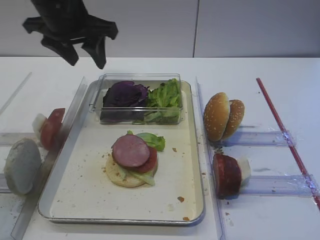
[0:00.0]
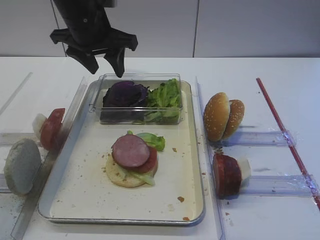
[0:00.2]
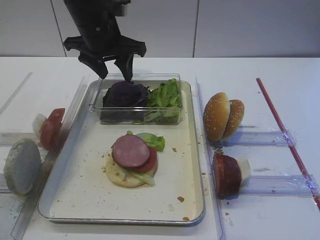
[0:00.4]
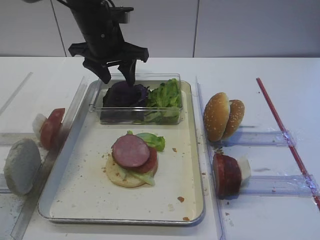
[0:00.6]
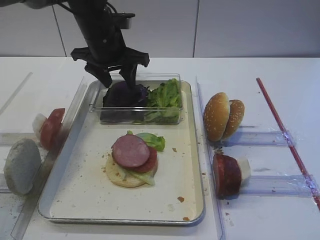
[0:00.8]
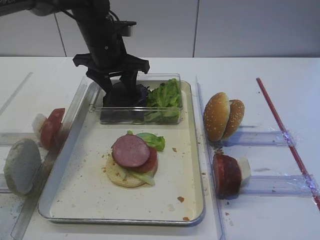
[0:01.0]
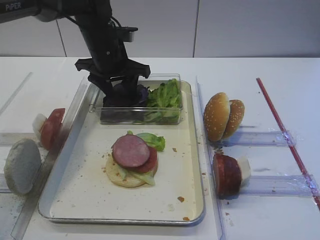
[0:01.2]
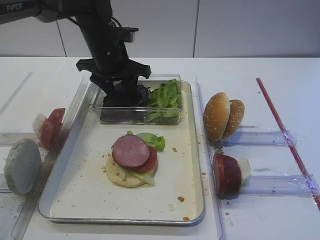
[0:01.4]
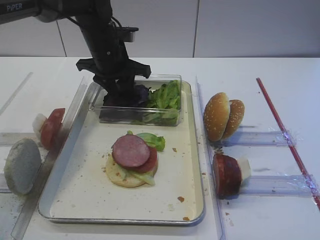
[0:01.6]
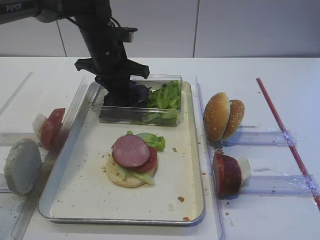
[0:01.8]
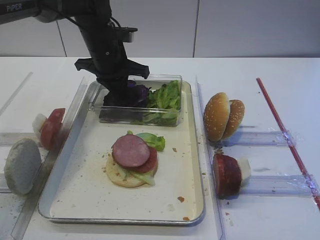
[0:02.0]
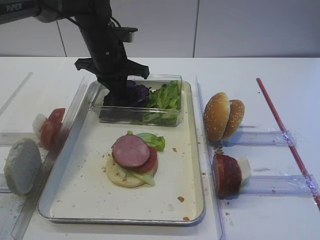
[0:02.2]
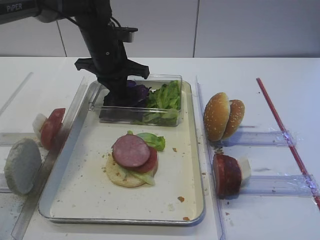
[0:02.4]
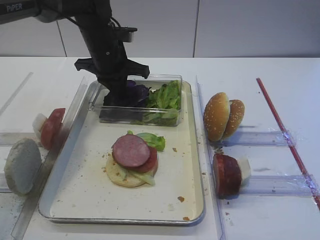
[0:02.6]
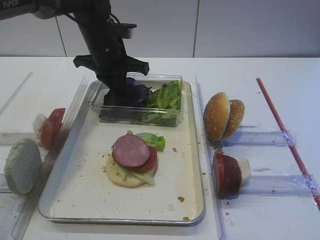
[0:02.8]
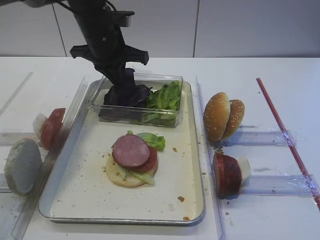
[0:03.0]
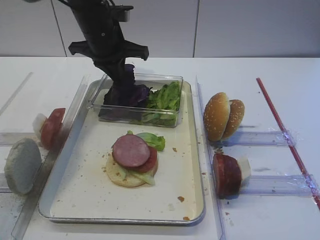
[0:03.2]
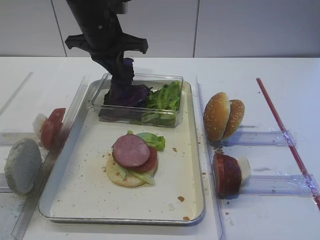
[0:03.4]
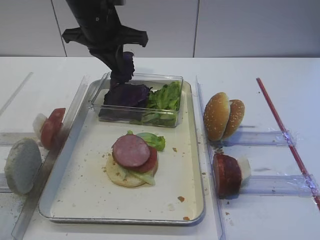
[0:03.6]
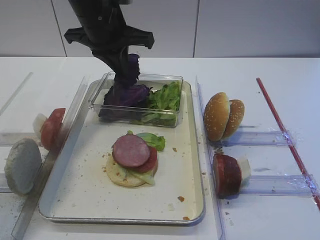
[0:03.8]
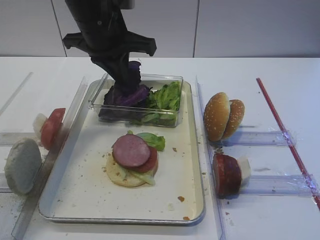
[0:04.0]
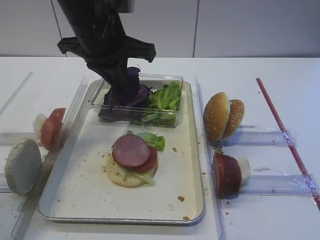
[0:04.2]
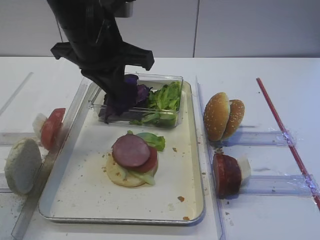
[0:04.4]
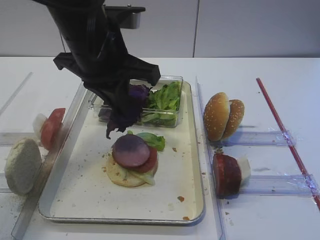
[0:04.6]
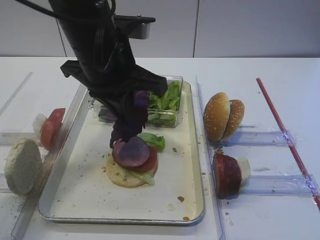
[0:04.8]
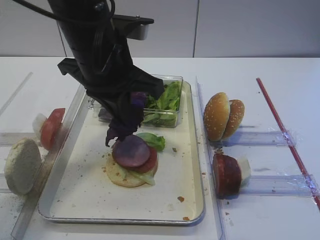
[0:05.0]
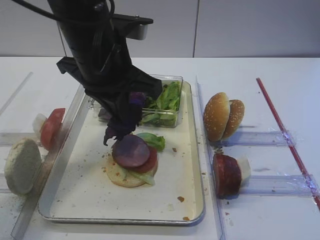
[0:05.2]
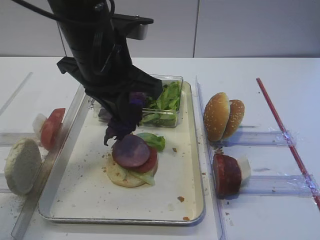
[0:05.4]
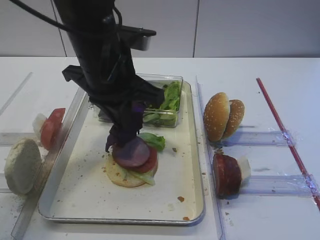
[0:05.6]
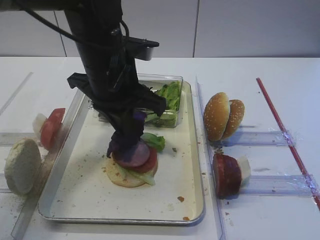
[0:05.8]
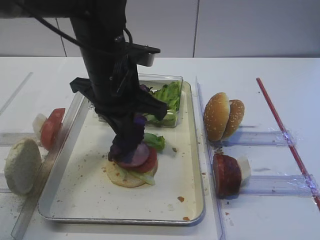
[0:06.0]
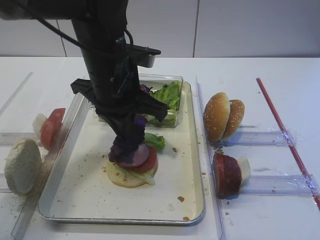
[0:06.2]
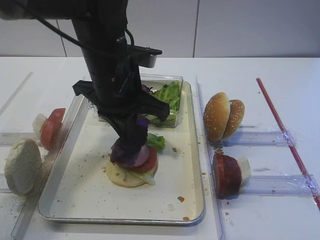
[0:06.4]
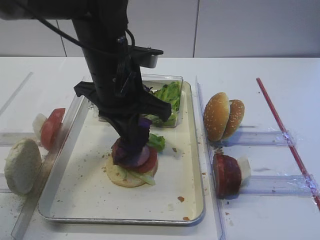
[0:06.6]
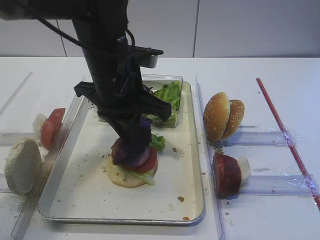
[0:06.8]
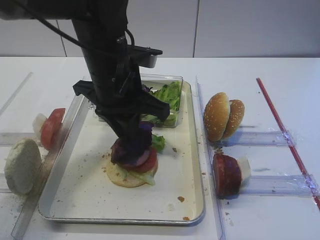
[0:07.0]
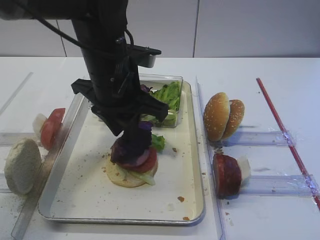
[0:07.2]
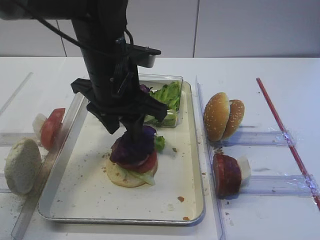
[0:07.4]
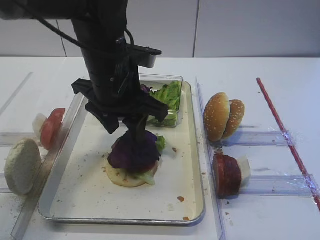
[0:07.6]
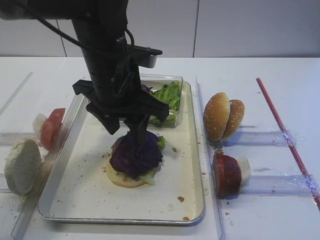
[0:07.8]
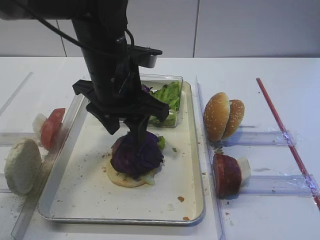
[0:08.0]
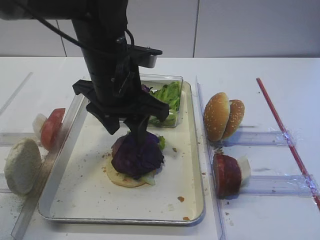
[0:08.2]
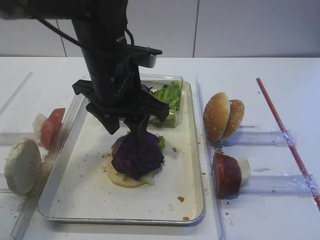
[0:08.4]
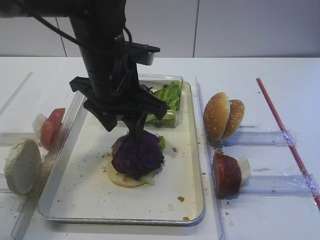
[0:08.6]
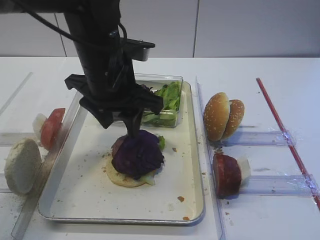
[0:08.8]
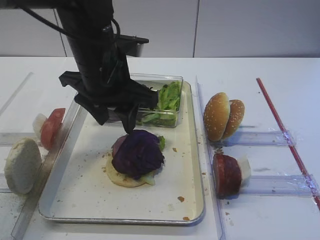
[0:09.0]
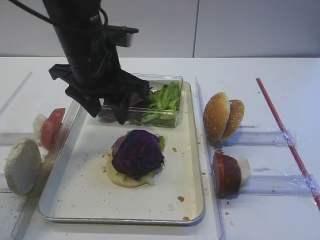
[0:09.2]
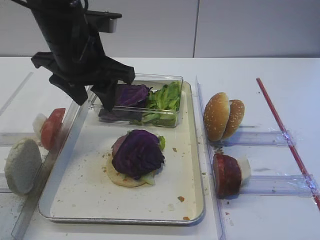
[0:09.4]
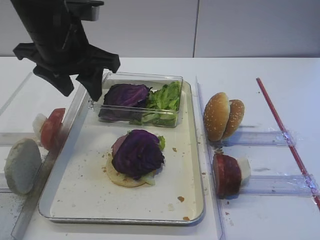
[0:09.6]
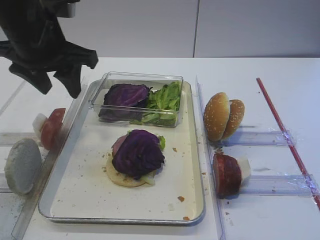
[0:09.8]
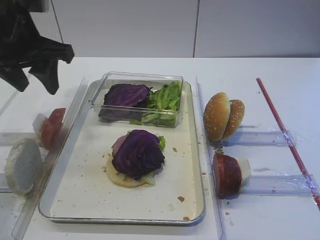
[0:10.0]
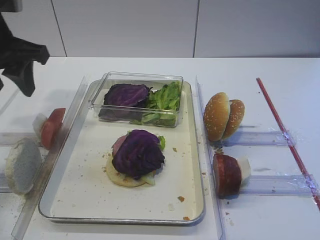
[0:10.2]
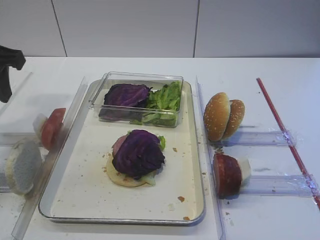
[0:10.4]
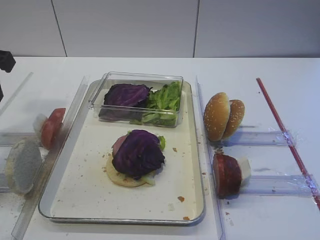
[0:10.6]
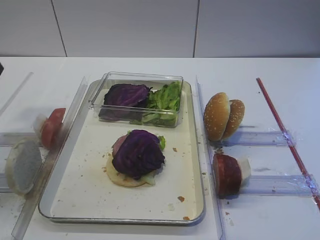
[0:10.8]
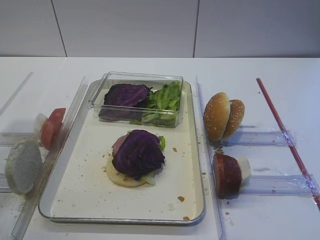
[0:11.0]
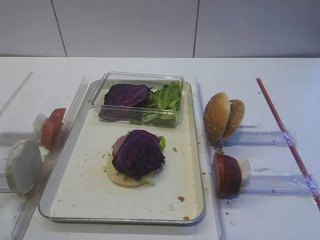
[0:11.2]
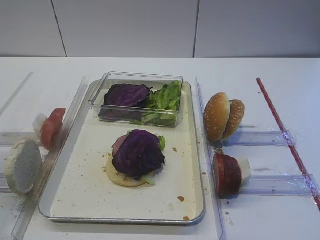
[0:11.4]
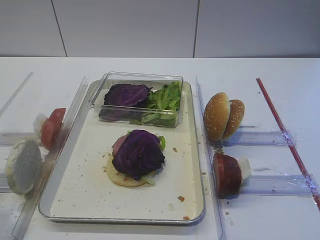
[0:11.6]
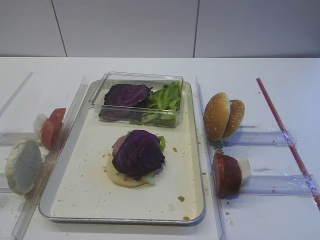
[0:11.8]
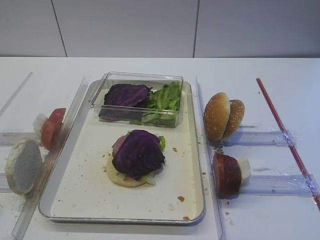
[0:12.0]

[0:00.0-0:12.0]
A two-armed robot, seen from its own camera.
Step, 0:00.0 to 0:03.6: Pick up the purple cabbage with the left gripper.
Step, 0:03.8 to 0:08.8: Place the purple cabbage on the cutlet with the left gripper.
0:00.0 to 0:01.6: The left gripper moves downward, forward and to the right, about 15 cm.
0:01.6 to 0:03.0: The left gripper closes its fingers.
0:03.0 to 0:04.4: The left gripper moves backward and upward, approximately 15 cm.
0:04.4 to 0:06.0: The left gripper travels downward by roughly 5 cm.
0:06.0 to 0:07.6: The left gripper opens its fingers.
0:07.6 to 0:09.0: The grippers move only a little.
0:09.0 to 0:10.4: The left gripper moves to the left, about 20 cm.
0:10.4 to 0:12.0: The left gripper goes some 25 cm backward.

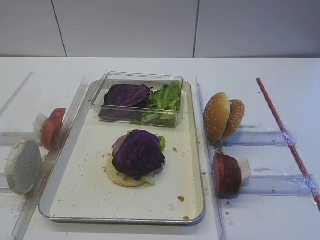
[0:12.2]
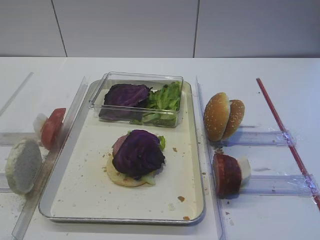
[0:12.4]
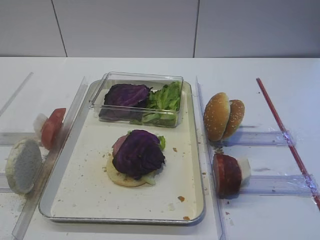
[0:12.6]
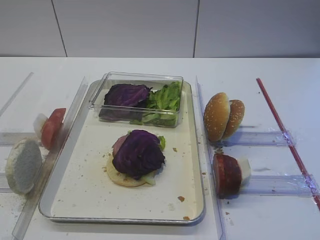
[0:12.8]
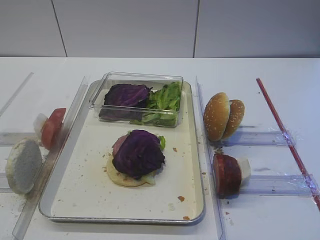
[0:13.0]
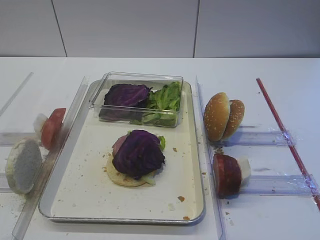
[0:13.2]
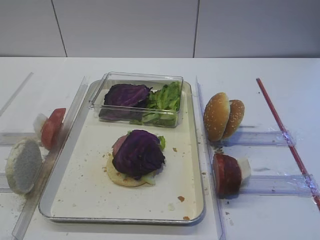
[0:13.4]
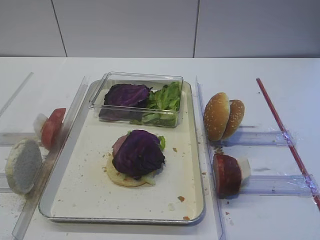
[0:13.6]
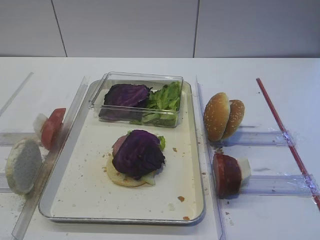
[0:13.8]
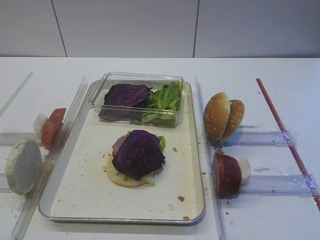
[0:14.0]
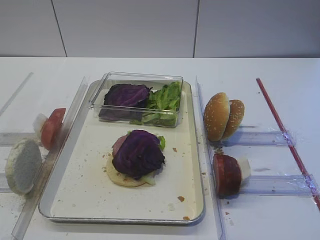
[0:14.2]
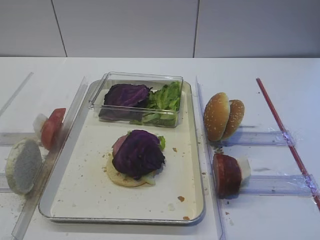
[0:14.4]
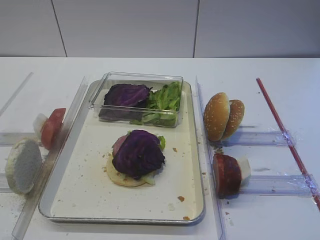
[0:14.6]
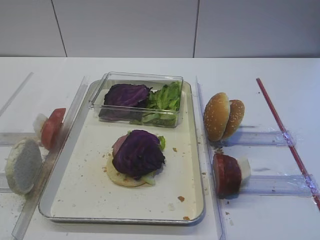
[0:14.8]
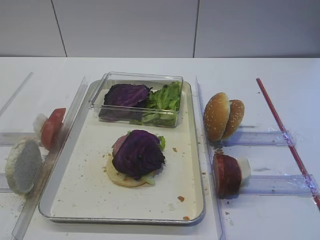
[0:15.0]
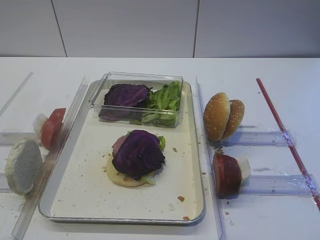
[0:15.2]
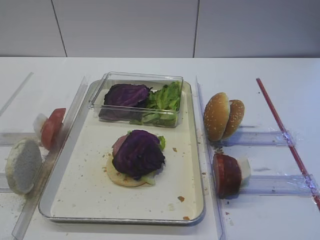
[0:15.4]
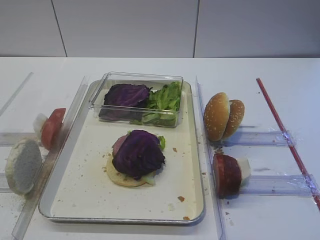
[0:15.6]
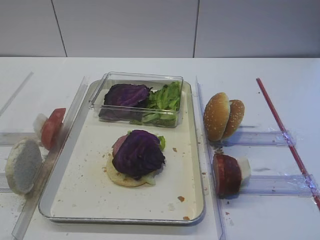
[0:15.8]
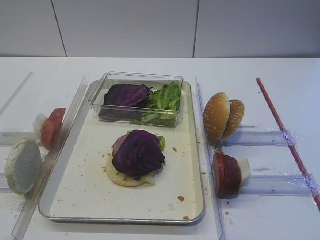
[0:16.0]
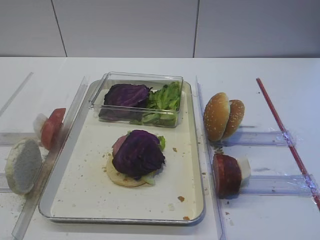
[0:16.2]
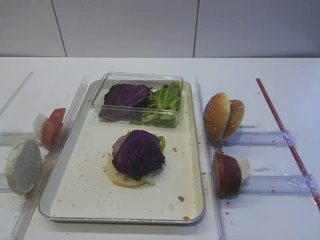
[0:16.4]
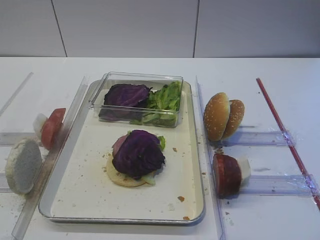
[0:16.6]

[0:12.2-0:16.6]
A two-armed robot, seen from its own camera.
0:13.6 to 0:16.6: The two grippers keep their place.

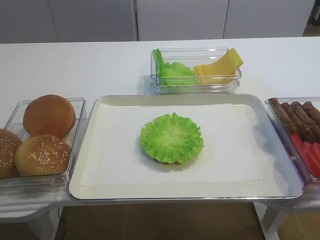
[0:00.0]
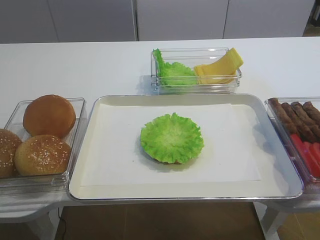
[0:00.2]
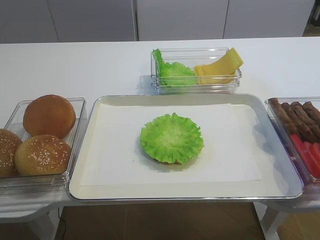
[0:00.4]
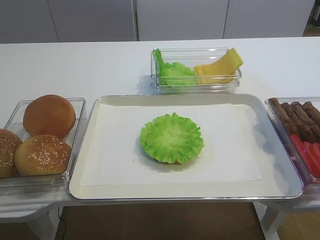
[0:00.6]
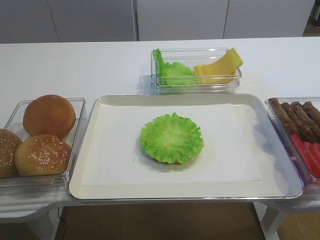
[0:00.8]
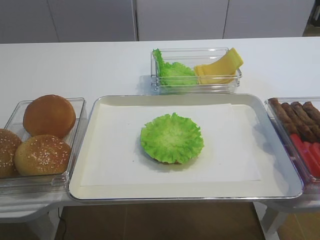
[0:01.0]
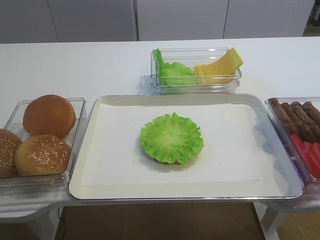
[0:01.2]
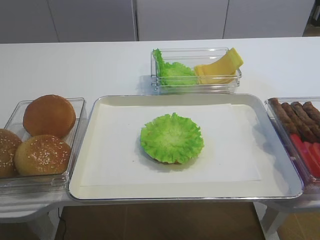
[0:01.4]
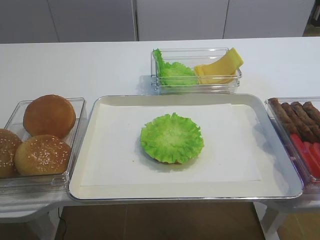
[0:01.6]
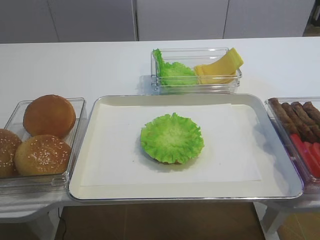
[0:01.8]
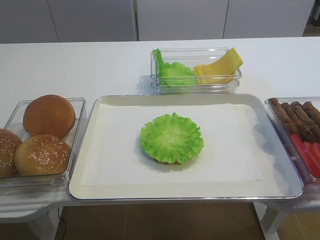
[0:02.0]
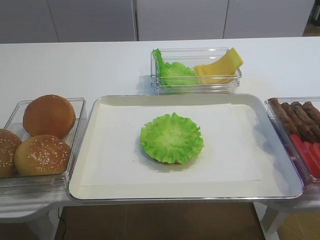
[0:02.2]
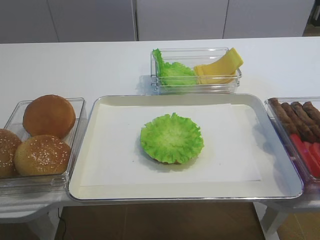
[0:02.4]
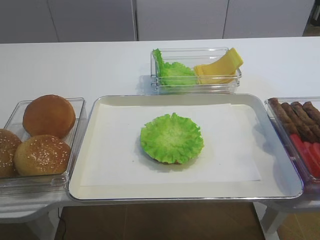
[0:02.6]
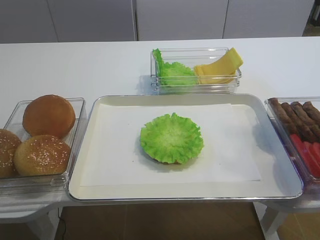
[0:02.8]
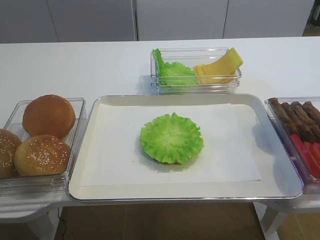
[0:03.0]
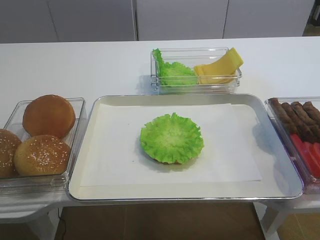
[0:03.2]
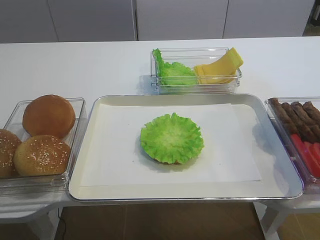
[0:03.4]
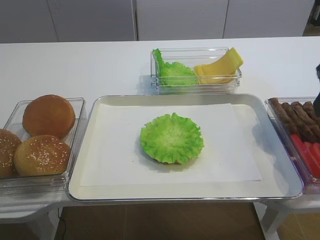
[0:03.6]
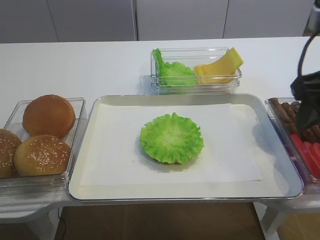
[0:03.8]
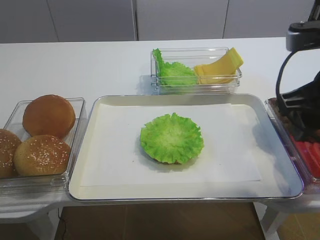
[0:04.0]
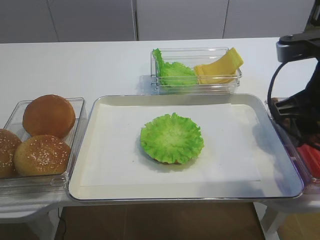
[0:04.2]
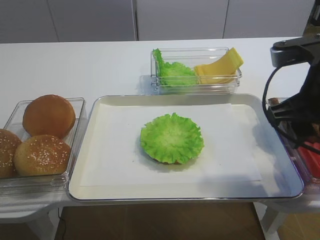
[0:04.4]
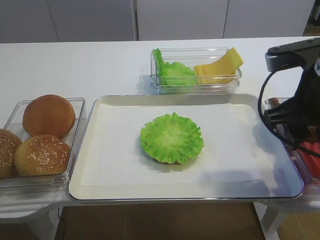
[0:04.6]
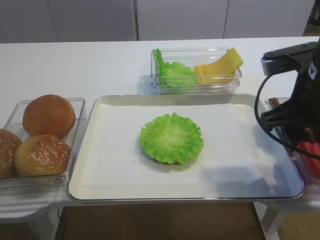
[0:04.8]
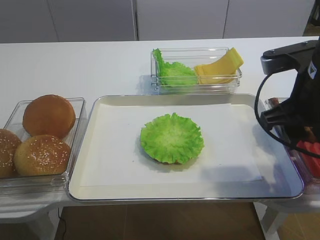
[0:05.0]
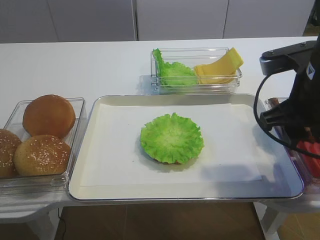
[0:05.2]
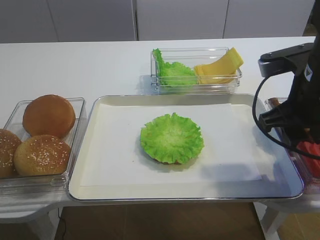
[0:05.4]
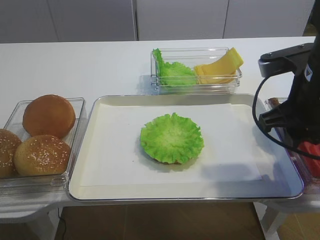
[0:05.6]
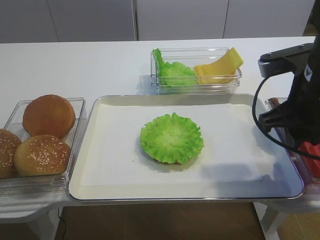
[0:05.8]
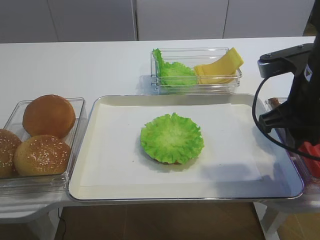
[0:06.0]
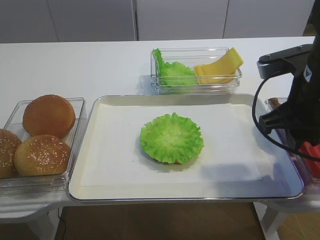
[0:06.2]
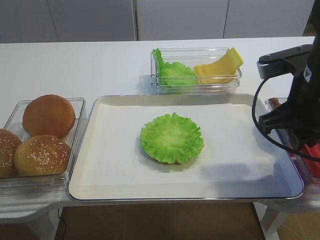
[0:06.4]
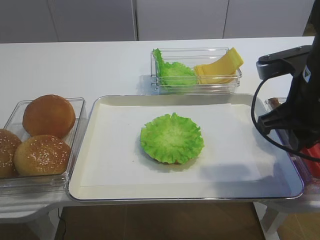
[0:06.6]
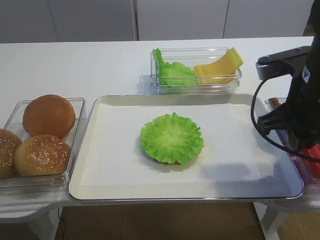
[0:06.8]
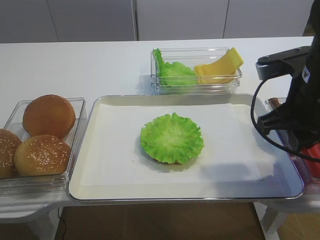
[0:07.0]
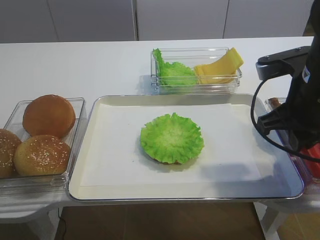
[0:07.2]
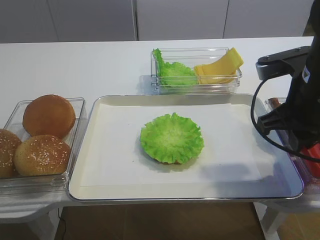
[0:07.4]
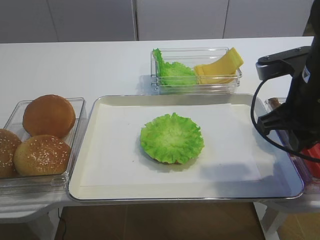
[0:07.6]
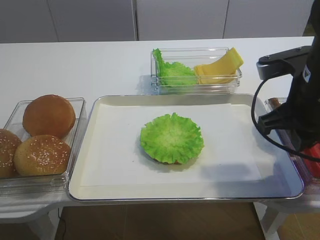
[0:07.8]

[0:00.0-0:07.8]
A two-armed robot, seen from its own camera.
0:01.6 to 0:03.2: The right gripper heads forward and upward, covering some 20 cm.
0:03.2 to 0:04.6: The right gripper is displaced downward, forward and to the left by roughly 15 cm.
0:04.6 to 0:06.2: The right gripper closes up.
0:06.2 to 0:07.8: The right gripper closes up.
